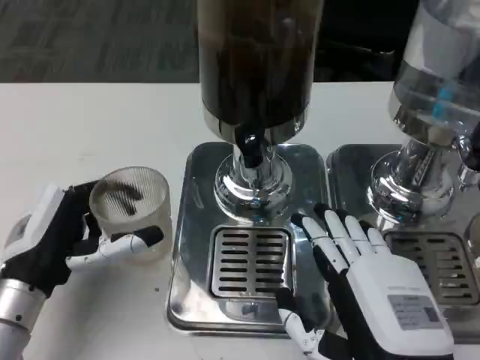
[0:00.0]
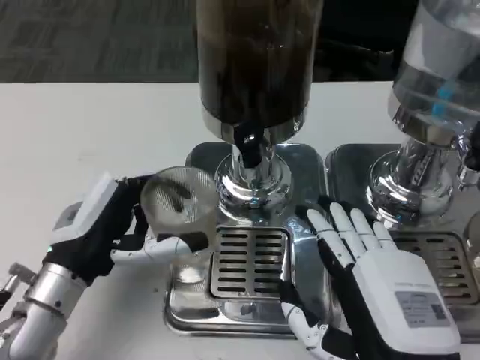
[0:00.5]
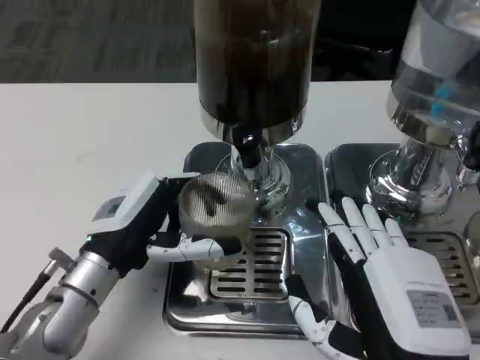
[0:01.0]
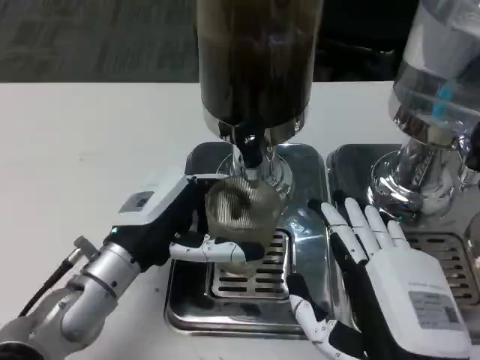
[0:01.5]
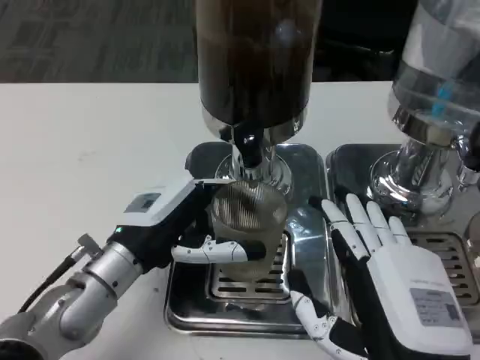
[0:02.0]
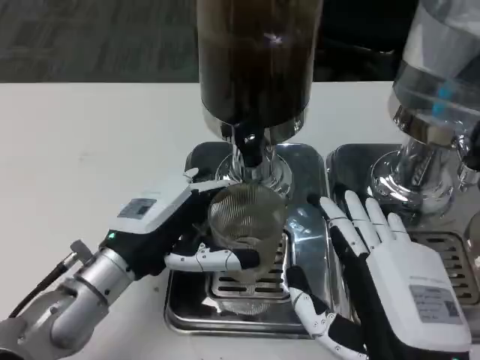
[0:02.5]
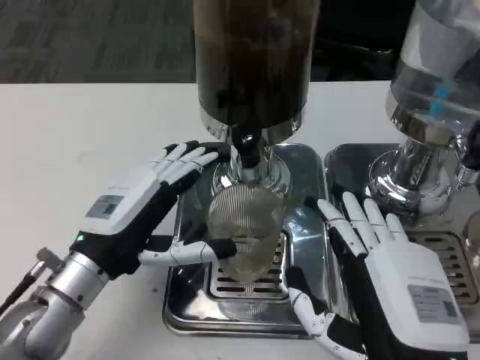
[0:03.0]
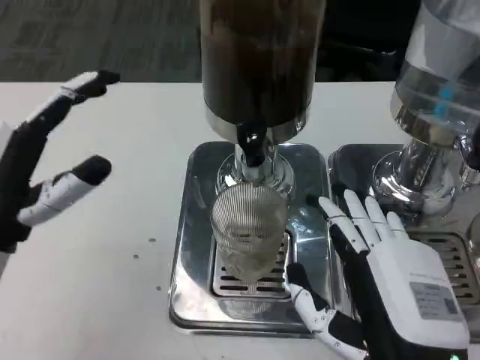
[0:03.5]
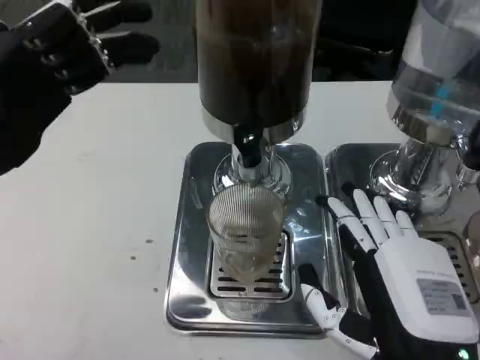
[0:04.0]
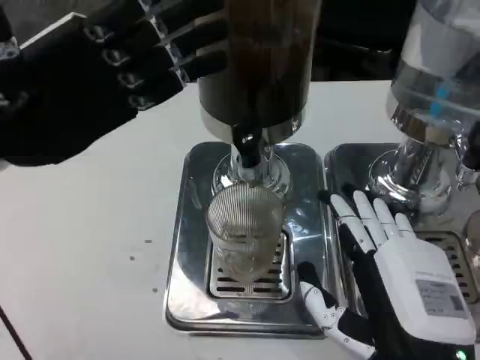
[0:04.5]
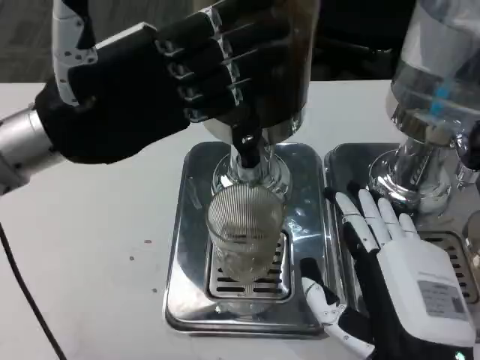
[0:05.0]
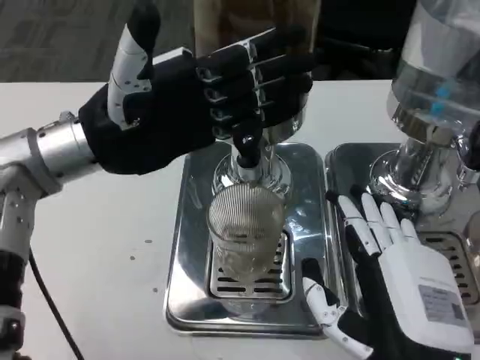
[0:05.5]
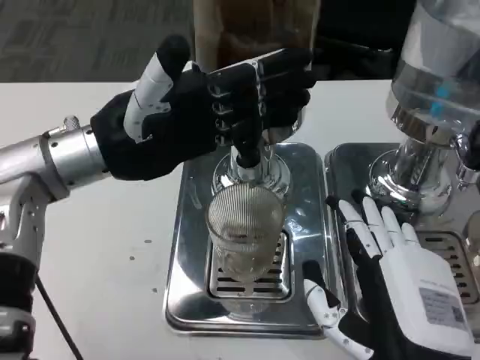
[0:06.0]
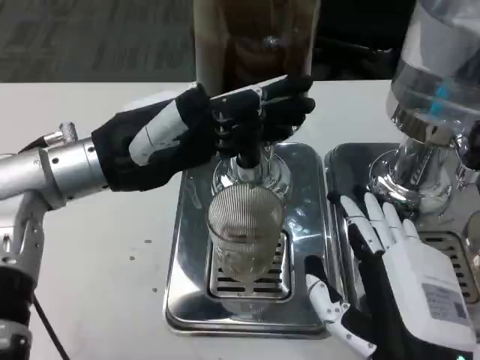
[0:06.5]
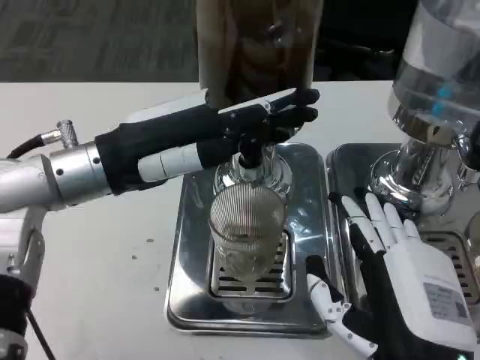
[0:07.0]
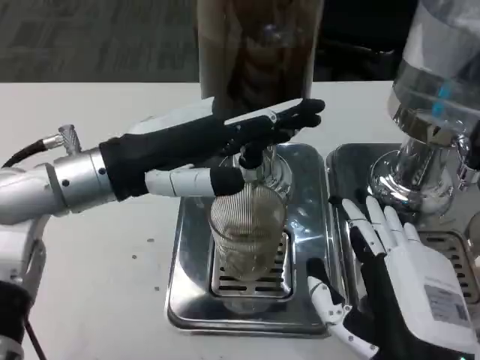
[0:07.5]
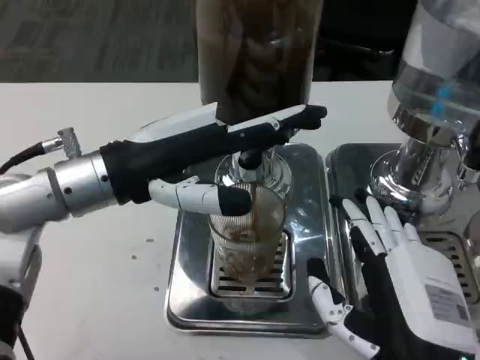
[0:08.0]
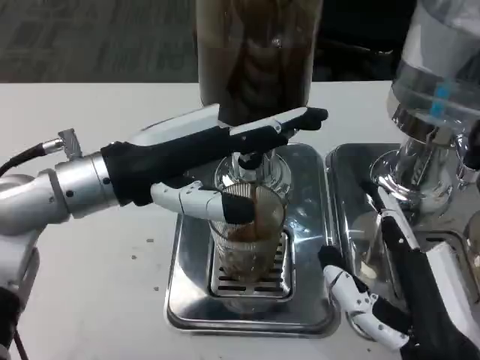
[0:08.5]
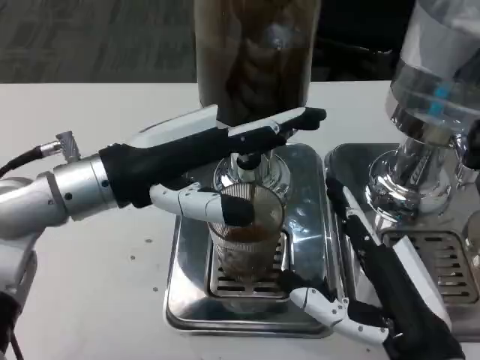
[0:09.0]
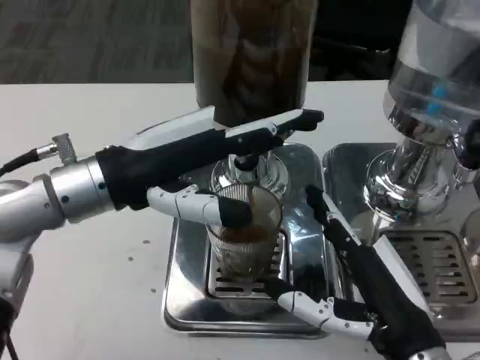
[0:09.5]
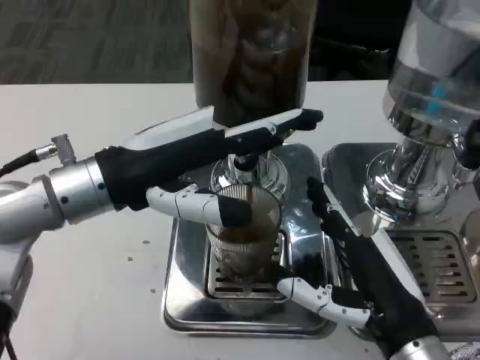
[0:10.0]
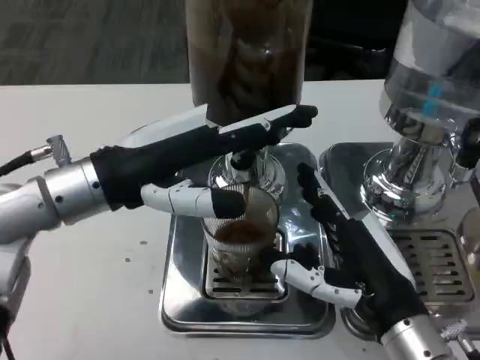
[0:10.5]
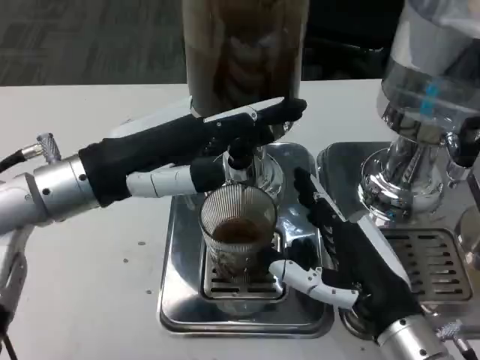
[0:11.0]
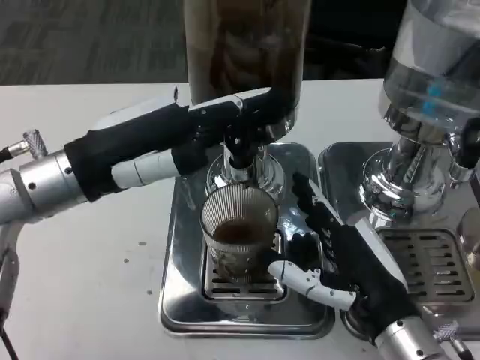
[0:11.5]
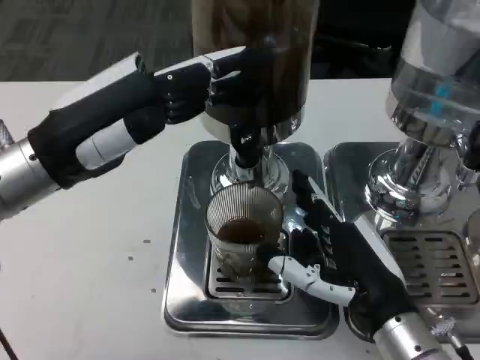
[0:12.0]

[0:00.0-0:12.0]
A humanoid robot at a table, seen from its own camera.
Task of the whole recording: Grasp the cup under the faucet to collect the drink, then remove the cup.
0:00.0 to 0:02.0: The left hand heads to the right, covering about 5 cm.
0:02.0 to 0:04.0: The left hand travels upward and to the left by about 20 cm.
0:04.0 to 0:06.0: The left hand shifts approximately 10 cm to the right and forward.
0:08.0 to 0:10.0: The right hand is displaced forward by approximately 5 cm.

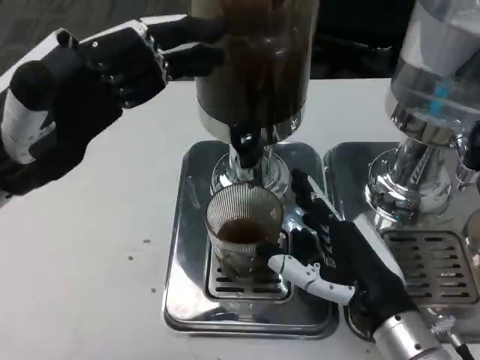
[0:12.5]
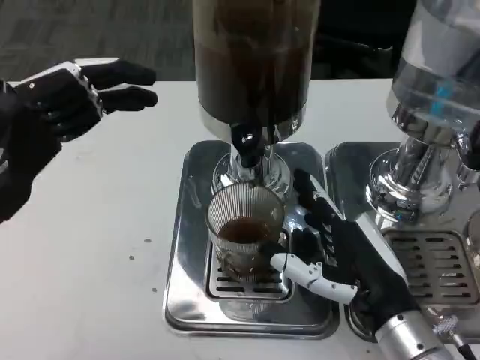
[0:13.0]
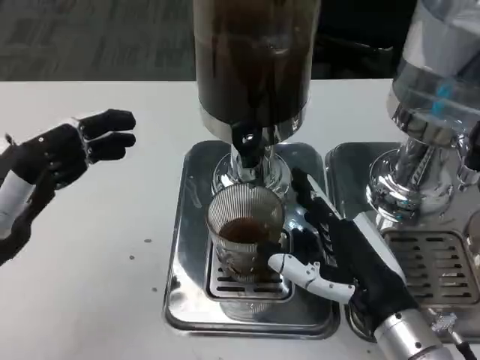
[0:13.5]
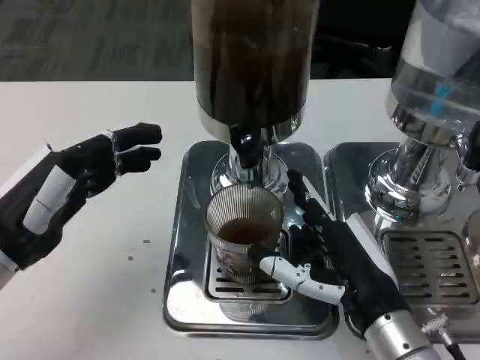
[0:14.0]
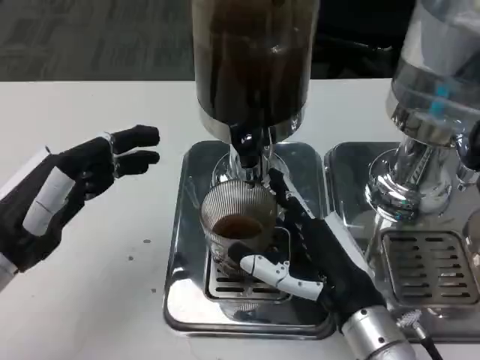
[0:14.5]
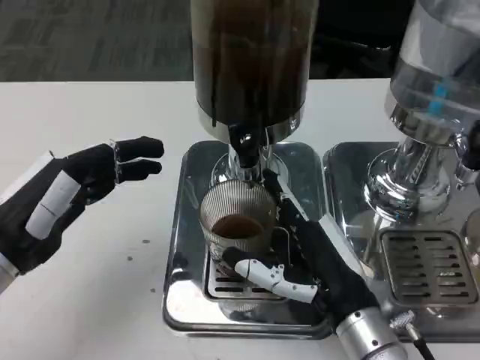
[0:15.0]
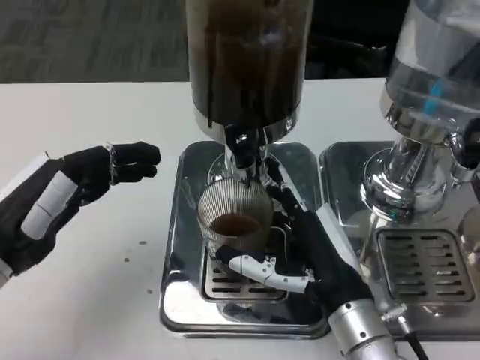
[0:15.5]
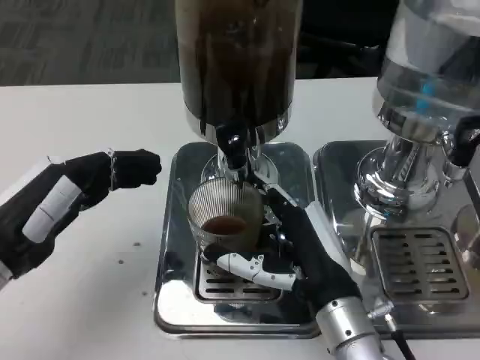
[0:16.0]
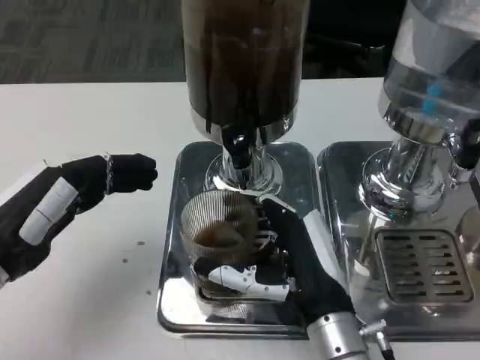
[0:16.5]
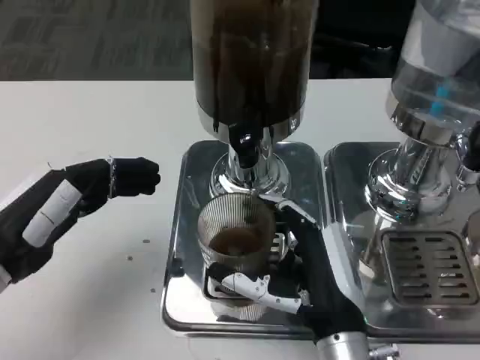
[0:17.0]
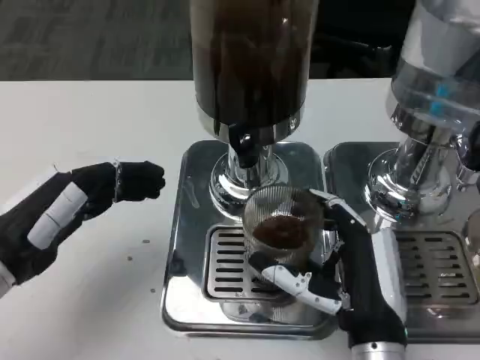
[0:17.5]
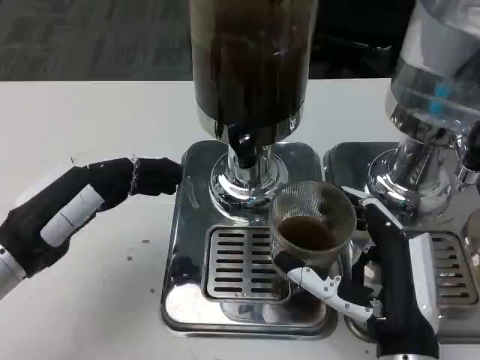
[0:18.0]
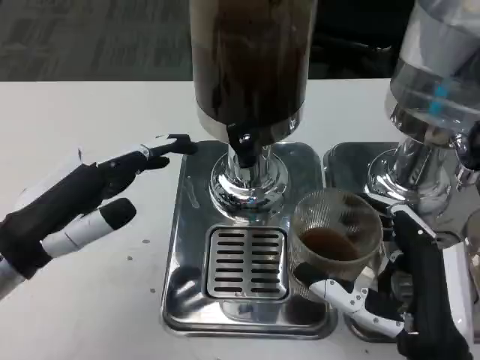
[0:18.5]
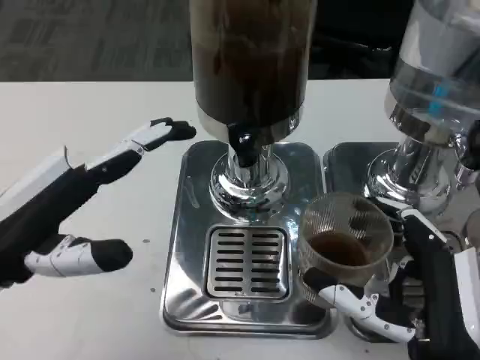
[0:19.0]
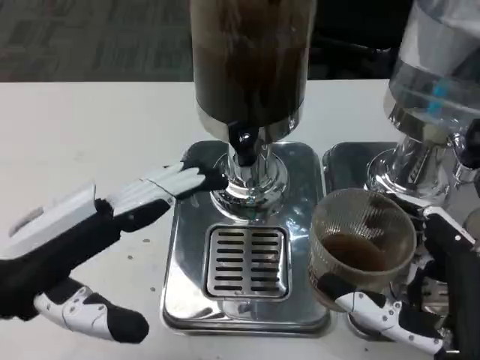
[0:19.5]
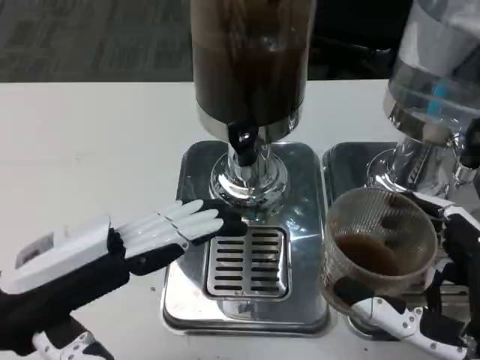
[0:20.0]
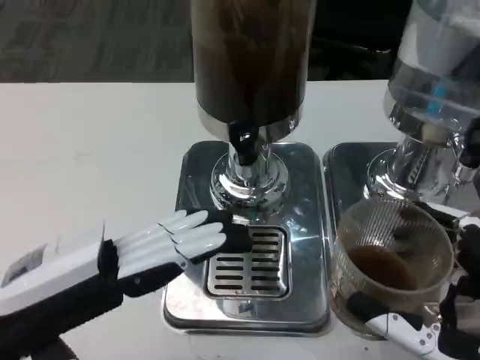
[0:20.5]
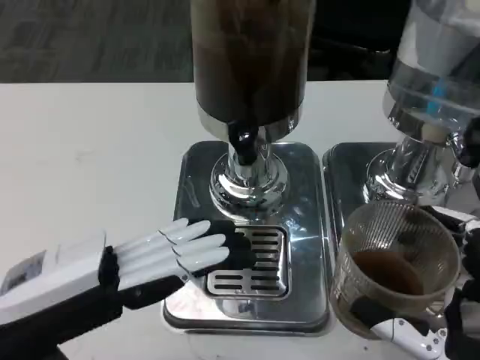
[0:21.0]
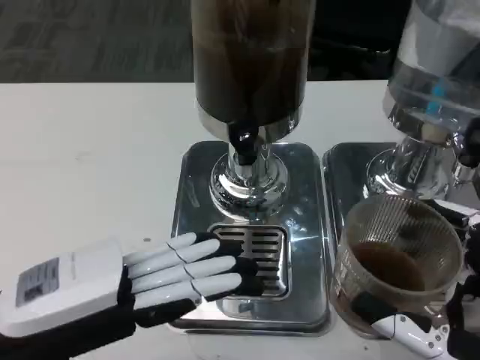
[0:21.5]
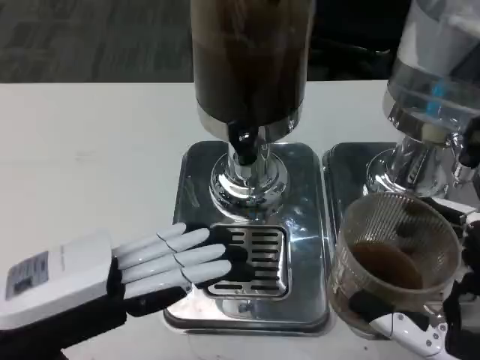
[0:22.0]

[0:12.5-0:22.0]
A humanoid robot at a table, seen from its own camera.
Task of the whole recording: Grasp the cup under the faucet to collect the drink, then remove the cup.
0:12.5 to 0:14.5: The left hand is displaced downward by some 10 cm.
0:16.5 to 0:18.0: The right hand moves roughly 5 cm.
0:18.0 to 0:20.0: The left hand is displaced backward by some 5 cm, while the right hand shifts roughly 10 cm backward and upward.

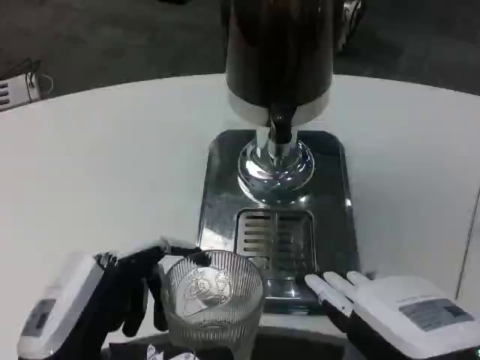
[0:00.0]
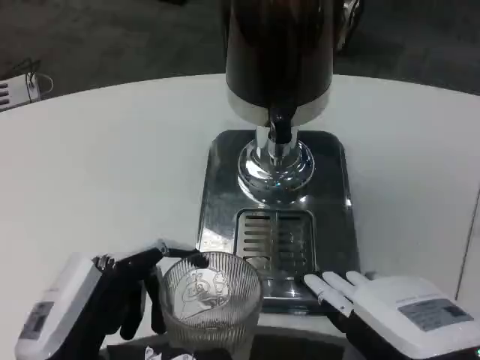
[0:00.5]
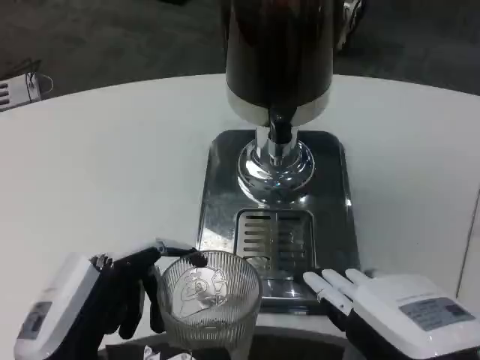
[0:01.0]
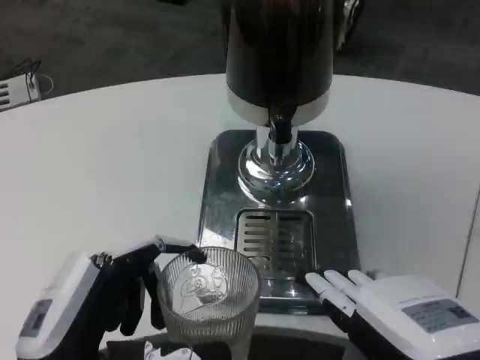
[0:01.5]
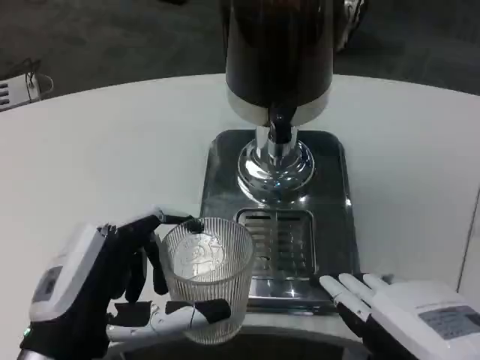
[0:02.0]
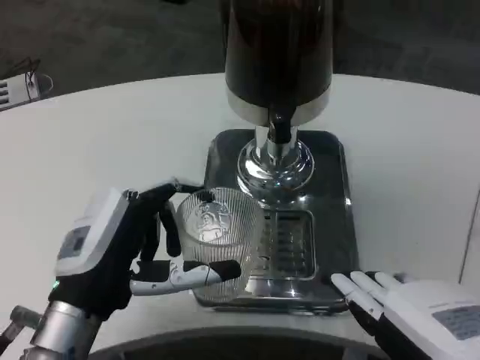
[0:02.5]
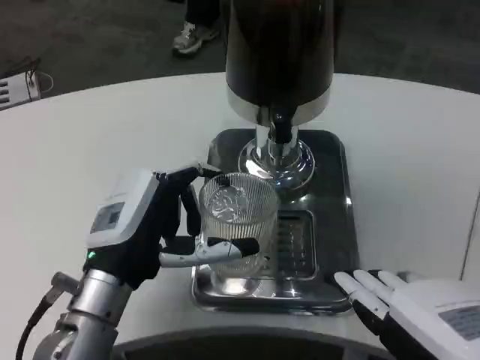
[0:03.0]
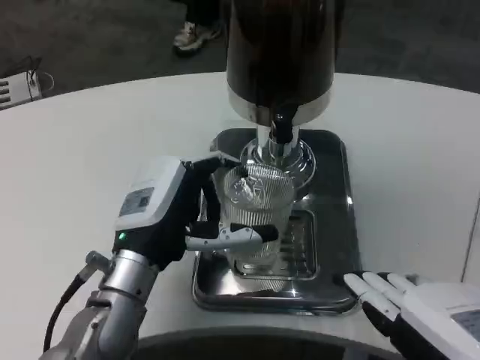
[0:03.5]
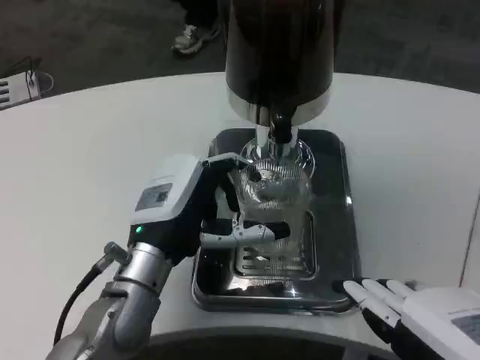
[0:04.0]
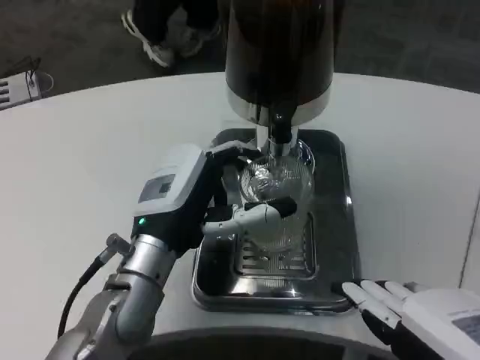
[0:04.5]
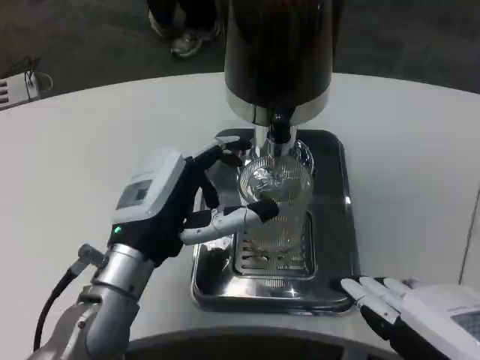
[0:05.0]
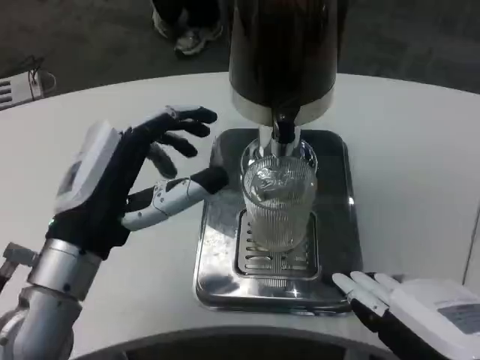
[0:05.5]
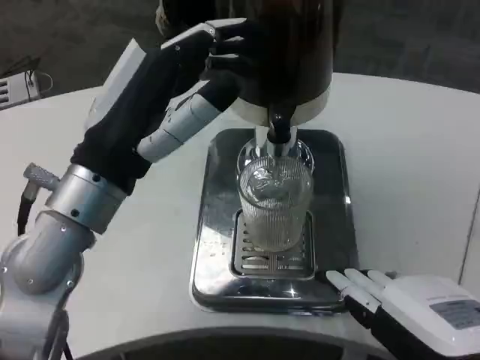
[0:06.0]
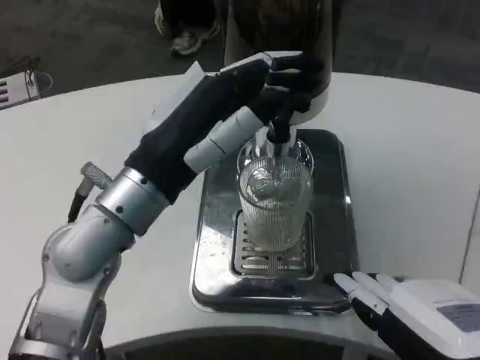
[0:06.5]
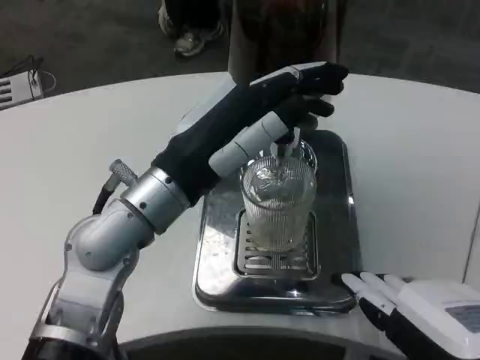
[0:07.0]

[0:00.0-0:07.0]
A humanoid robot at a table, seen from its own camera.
Task of the whole recording: Grasp the cup under the faucet to collect the drink, then remove the cup.
0:00.0 to 0:02.0: The hands stay close to where they were, moving slightly.
0:02.0 to 0:03.5: The left hand shifts about 10 cm forward.
0:03.5 to 0:05.0: The hands stay close to where they were, moving slightly.
0:05.0 to 0:07.0: The left hand goes some 10 cm upward.
